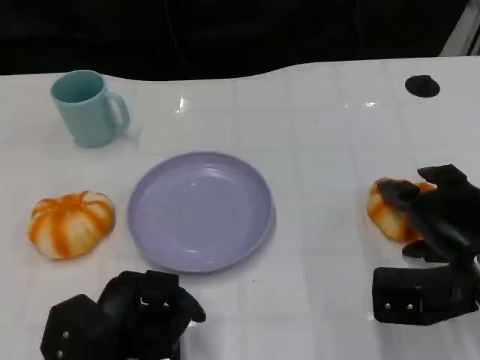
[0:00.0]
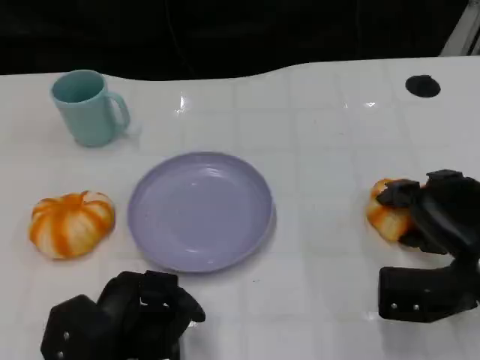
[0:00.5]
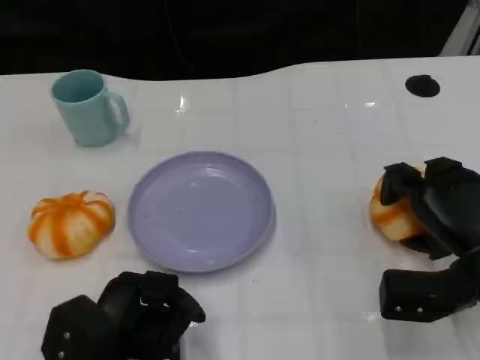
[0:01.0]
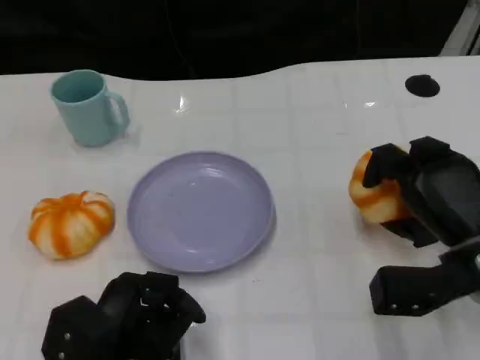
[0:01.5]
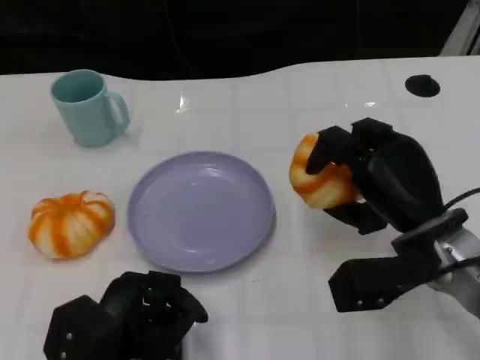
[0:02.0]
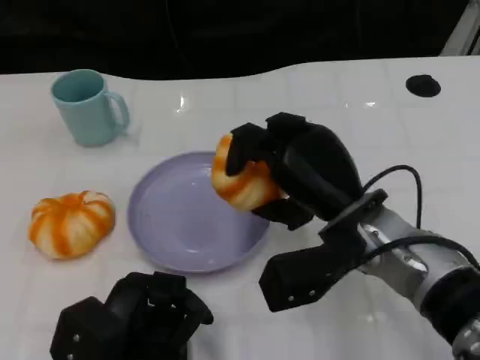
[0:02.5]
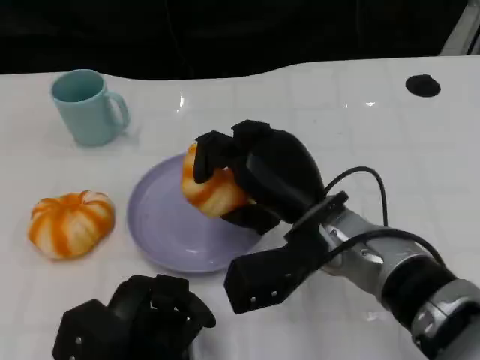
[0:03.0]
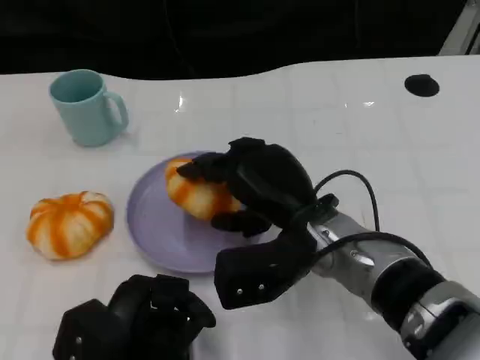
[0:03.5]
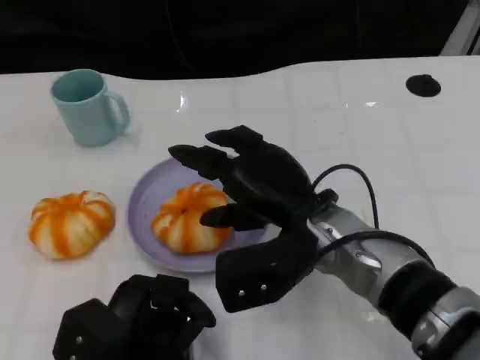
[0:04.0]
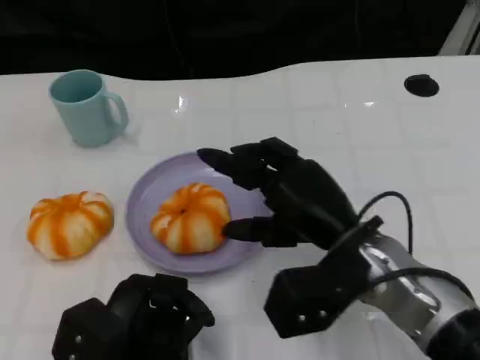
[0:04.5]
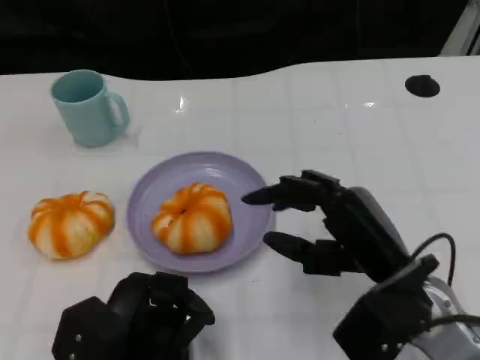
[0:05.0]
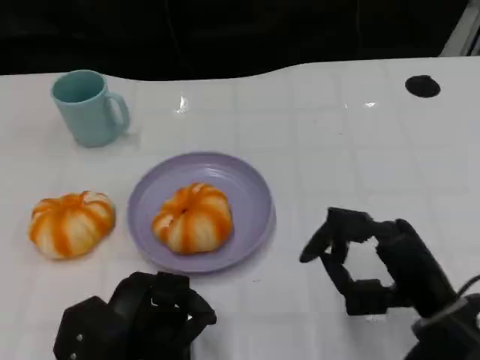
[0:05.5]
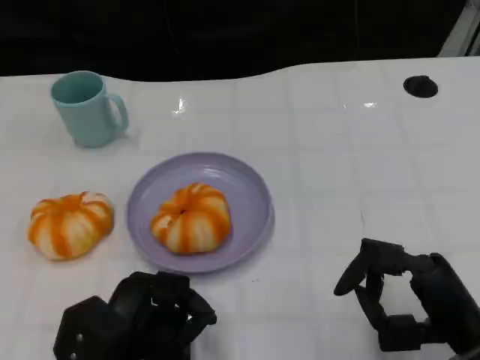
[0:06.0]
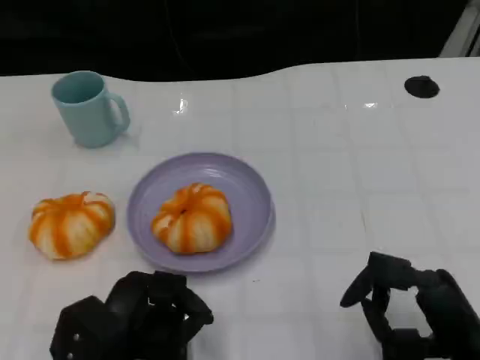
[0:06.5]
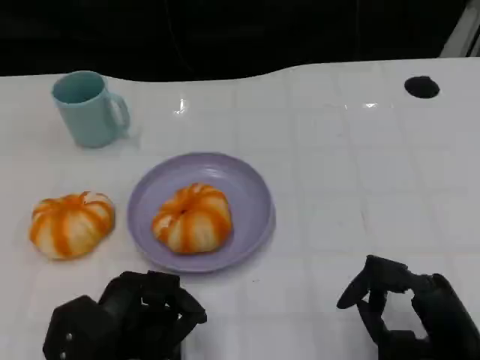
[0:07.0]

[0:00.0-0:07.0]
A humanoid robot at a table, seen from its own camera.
Task of the whole recording: Grasp the bread from the table and place it into the plate.
0:00.0 to 0:02.0: The right hand shifts approximately 5 cm to the left.
0:02.0 to 0:03.5: The right hand heads to the left, covering roughly 10 cm.
0:03.5 to 0:05.0: The right hand goes roughly 10 cm to the right and backward.
0:05.0 to 0:07.0: The right hand heads backward, to the right and downward, covering some 10 cm.

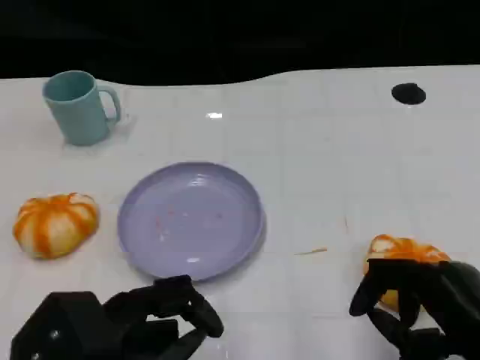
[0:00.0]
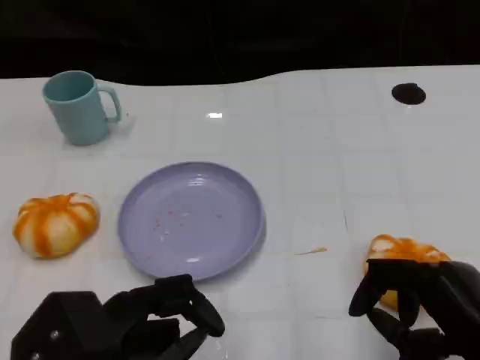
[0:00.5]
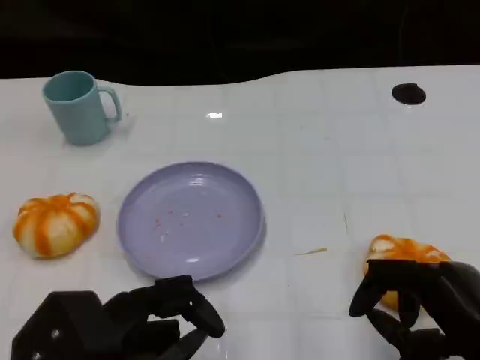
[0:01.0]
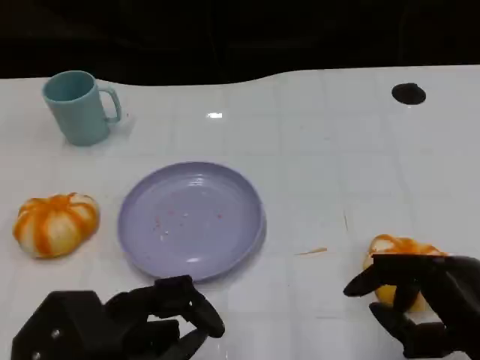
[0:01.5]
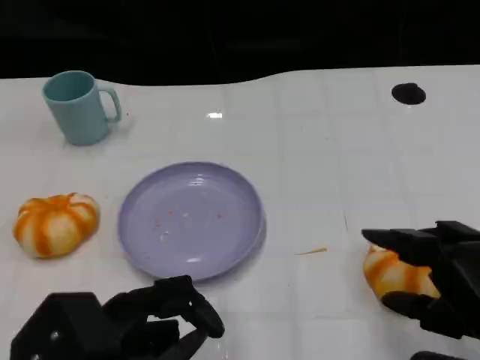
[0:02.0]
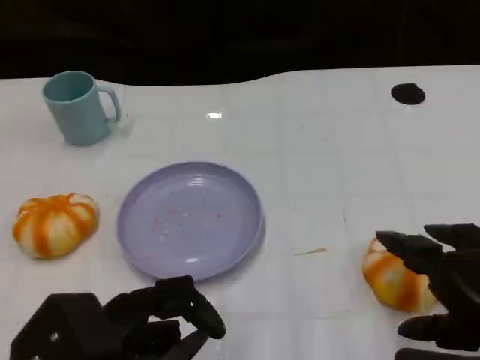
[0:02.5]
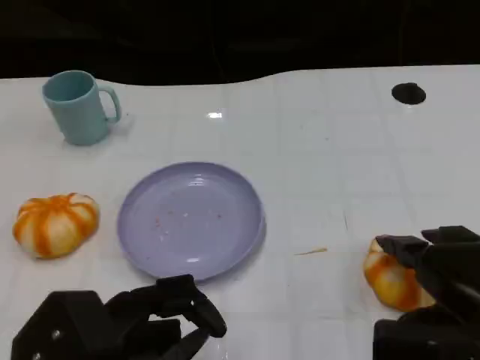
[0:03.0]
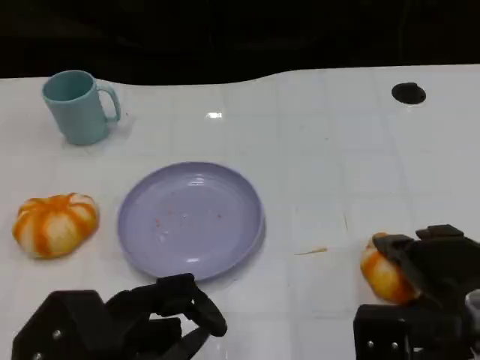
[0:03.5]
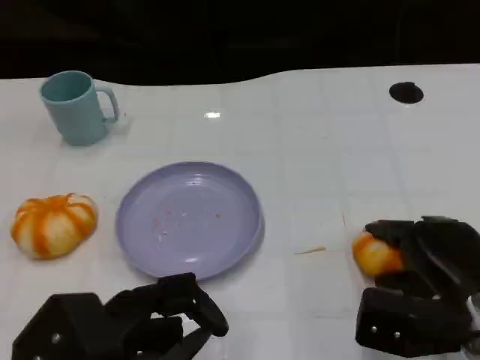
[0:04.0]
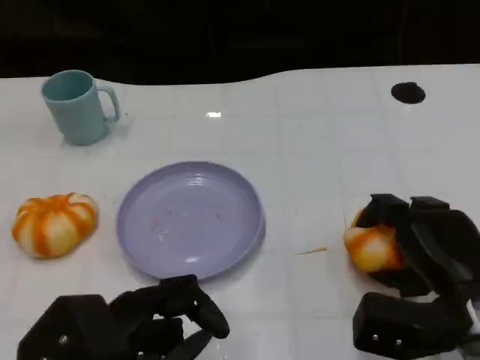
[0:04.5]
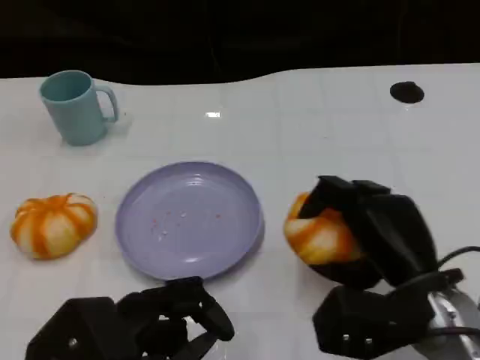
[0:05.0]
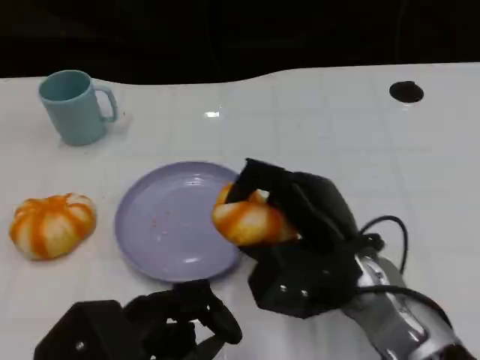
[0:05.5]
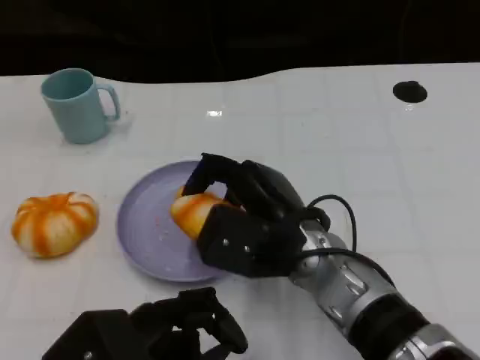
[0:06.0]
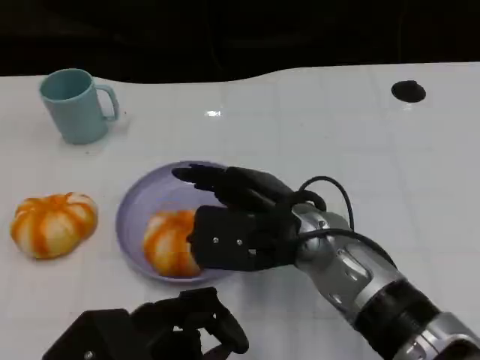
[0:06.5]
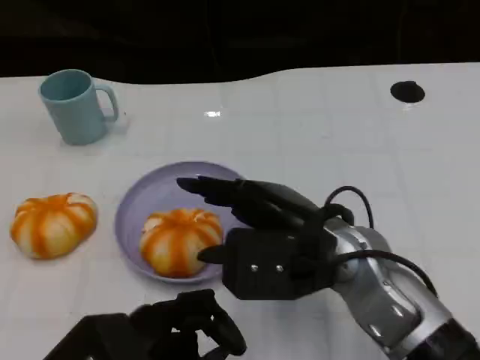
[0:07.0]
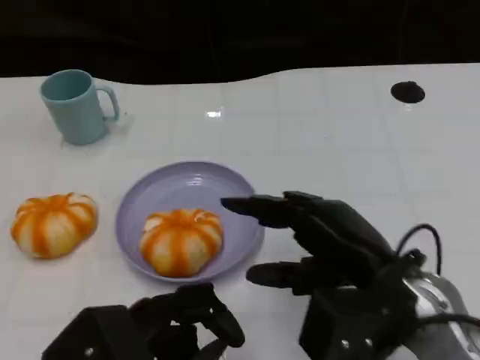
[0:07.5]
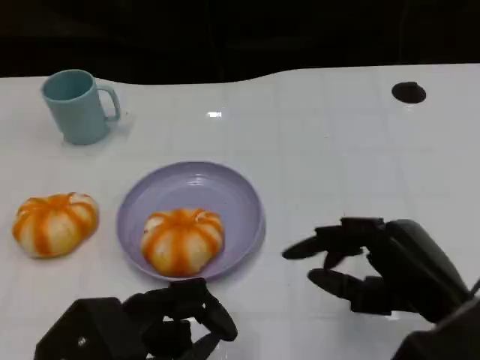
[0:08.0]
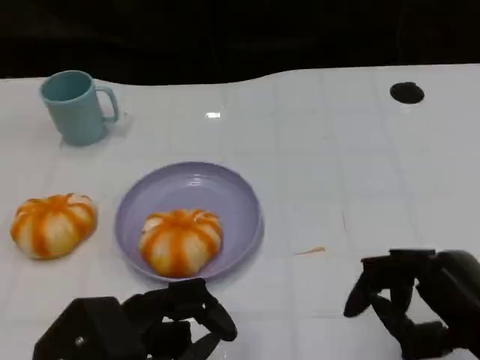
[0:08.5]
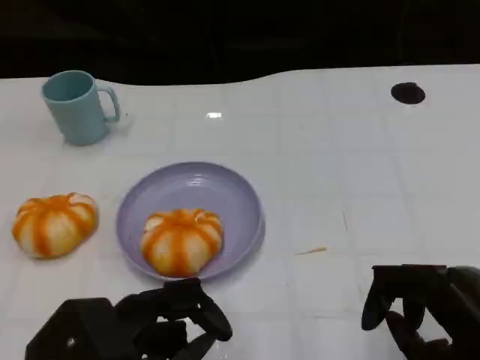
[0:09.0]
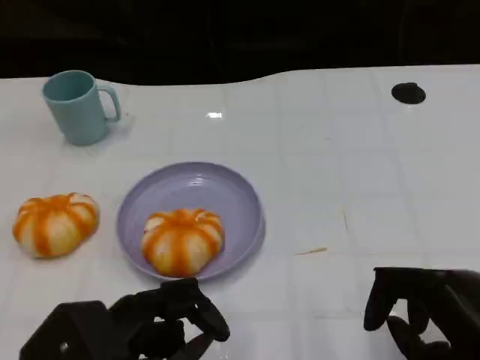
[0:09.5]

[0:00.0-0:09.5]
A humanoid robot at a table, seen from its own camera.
Task of the whole recording: Grasp the bread from the table and place it into the plate.
0:02.0 to 0:04.0: The right hand shifts approximately 10 cm forward and downward.
0:04.0 to 0:05.5: The right hand goes some 15 cm to the left.
0:05.5 to 0:07.5: The right hand heads to the right, covering some 5 cm.
0:07.5 to 0:09.5: The right hand heads to the right and backward, covering some 10 cm.

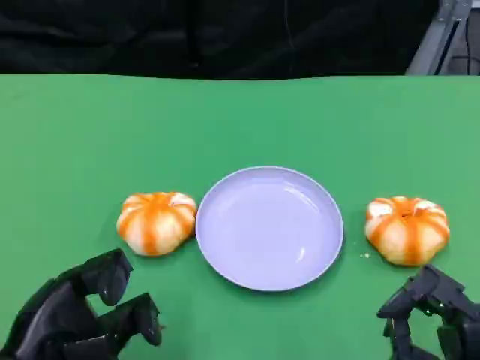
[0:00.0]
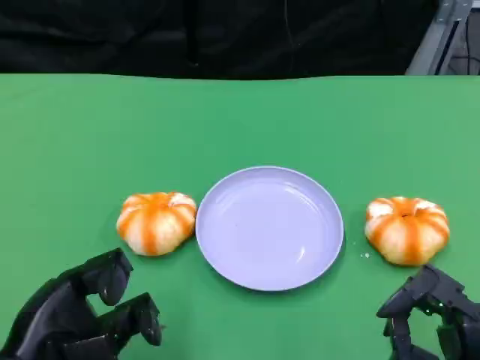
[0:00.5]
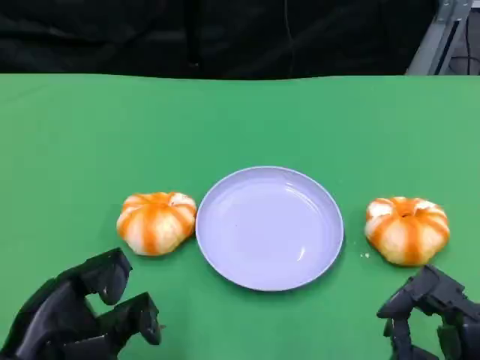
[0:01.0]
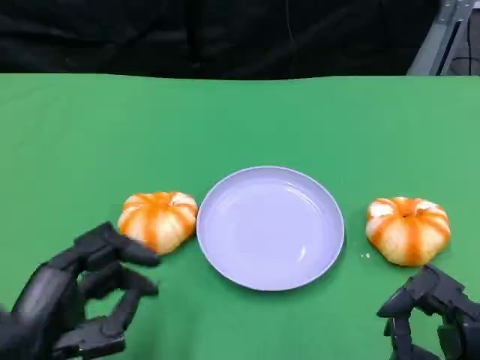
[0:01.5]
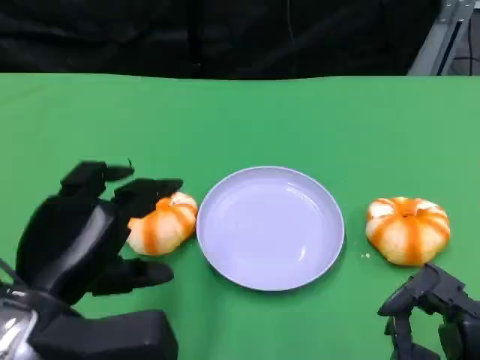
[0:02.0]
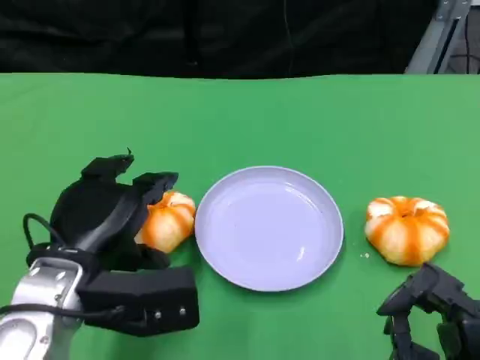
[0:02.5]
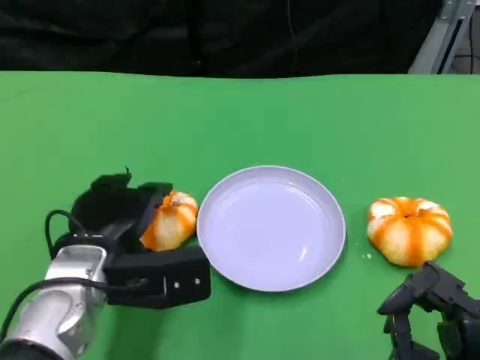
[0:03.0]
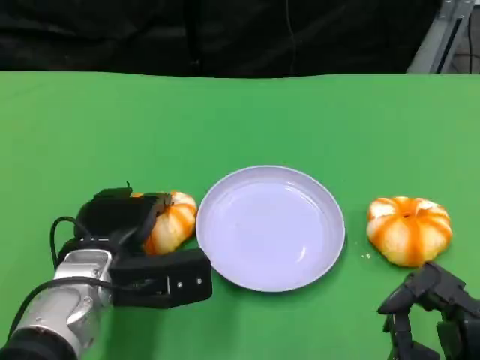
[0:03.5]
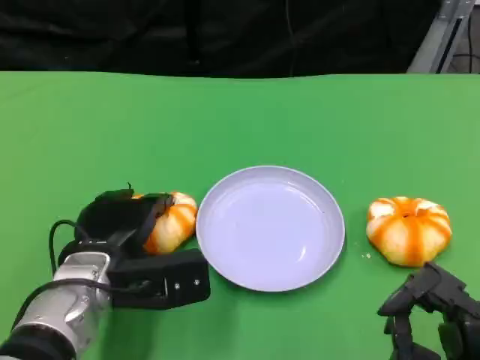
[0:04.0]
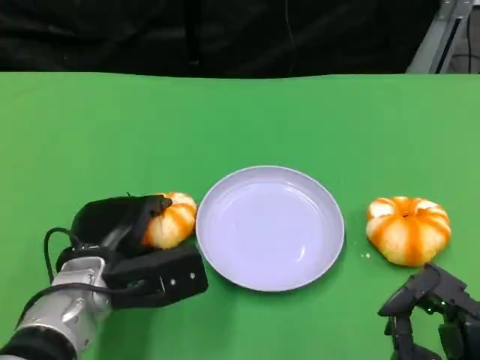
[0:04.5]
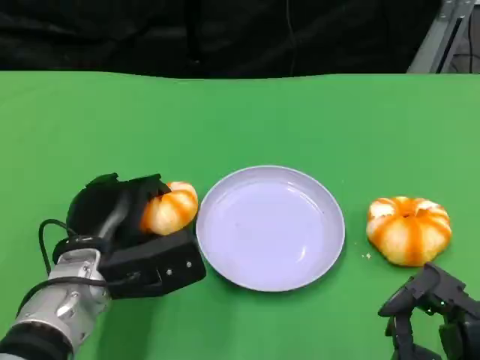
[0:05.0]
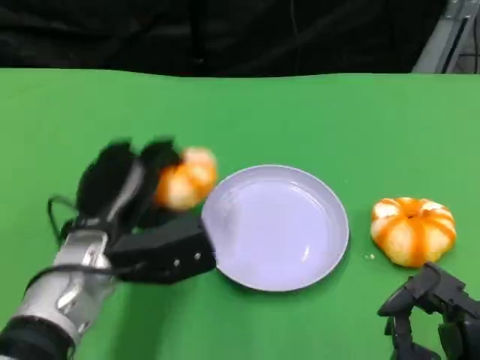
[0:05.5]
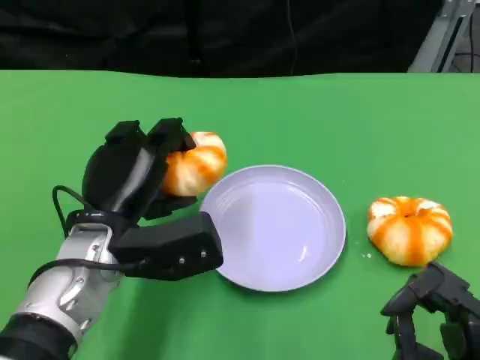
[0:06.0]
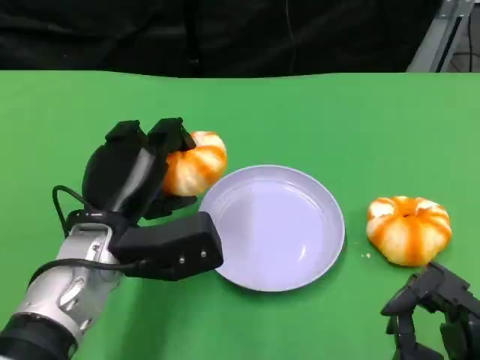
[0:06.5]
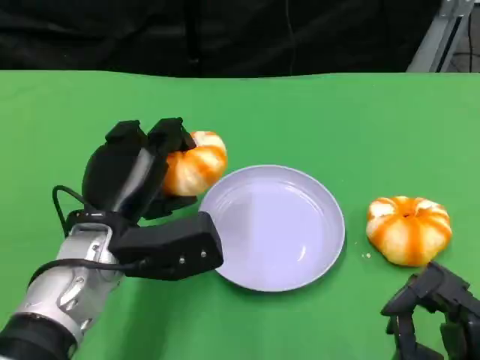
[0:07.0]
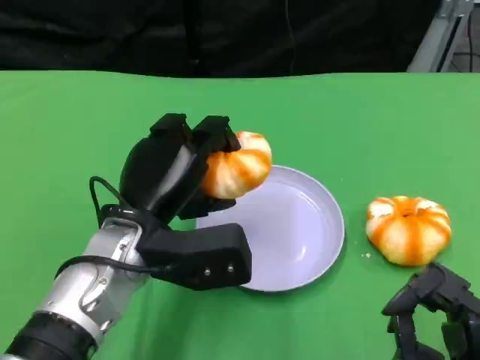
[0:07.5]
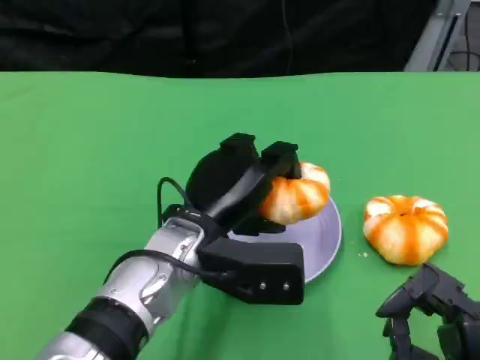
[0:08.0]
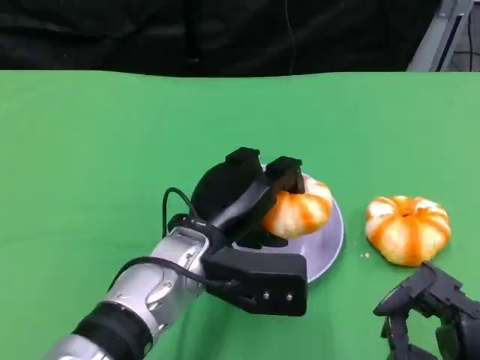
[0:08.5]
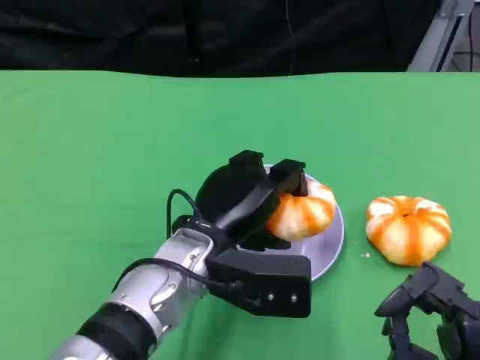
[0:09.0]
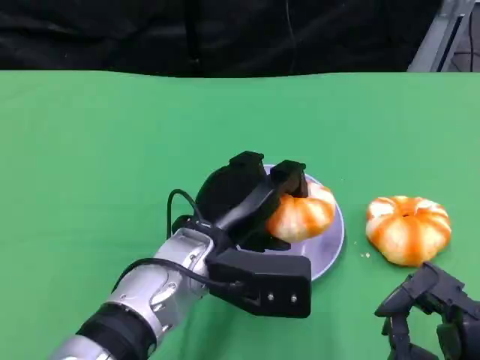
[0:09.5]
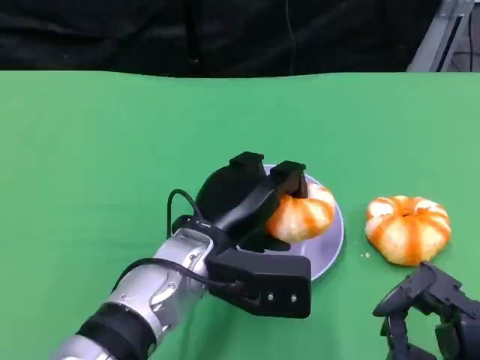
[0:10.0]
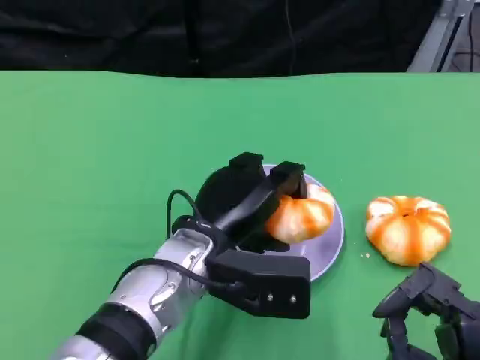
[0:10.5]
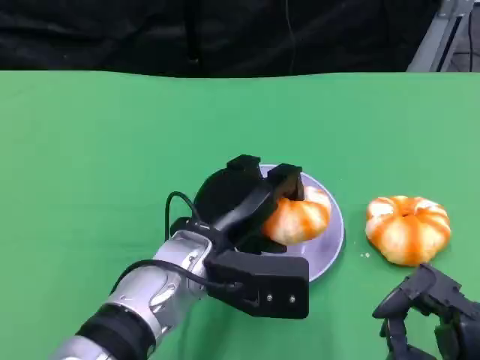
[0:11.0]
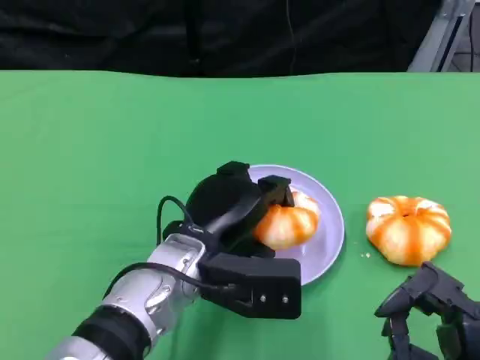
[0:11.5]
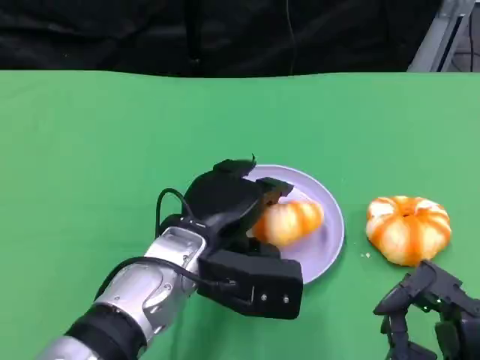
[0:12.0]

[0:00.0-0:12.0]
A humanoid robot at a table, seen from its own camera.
Task of the whole recording: Grasp the bread from the table and place it into the plate.
0:00.0 to 0:02.0: The left hand ends up about 5 cm from where it was.
0:02.0 to 0:04.0: The left hand heads downward and forward, covering some 10 cm.
0:06.0 to 0:08.0: The left hand heads to the right, covering some 10 cm.
0:08.0 to 0:10.0: The two hands keep their place.
0:10.0 to 0:12.0: The hands make only small movements.
